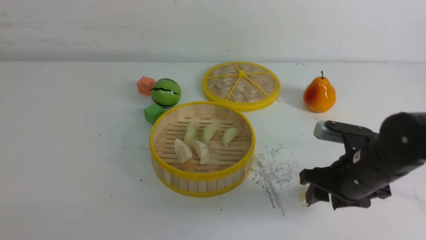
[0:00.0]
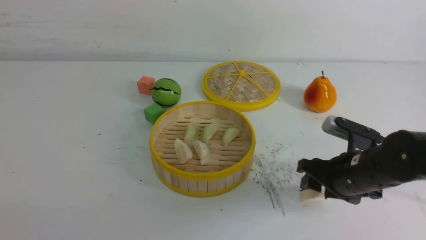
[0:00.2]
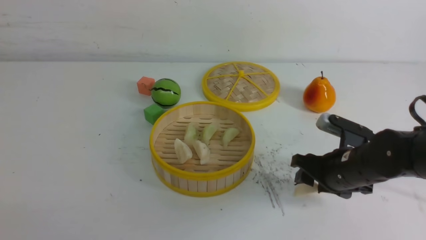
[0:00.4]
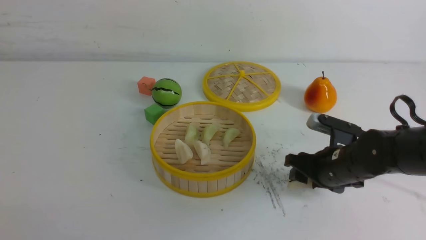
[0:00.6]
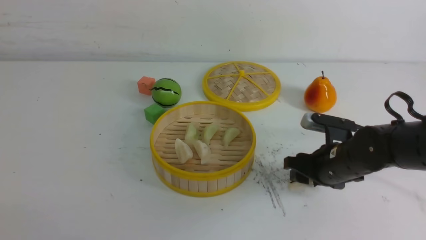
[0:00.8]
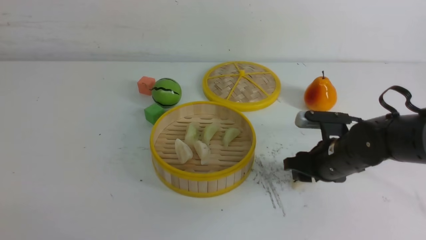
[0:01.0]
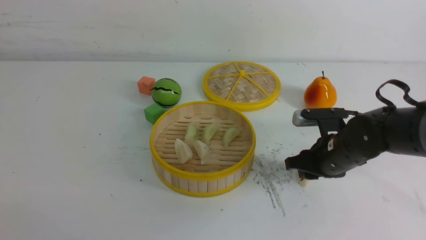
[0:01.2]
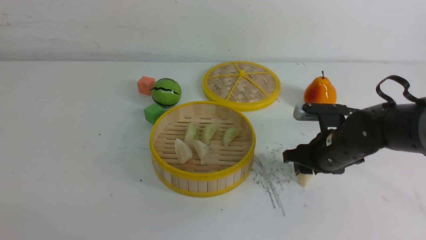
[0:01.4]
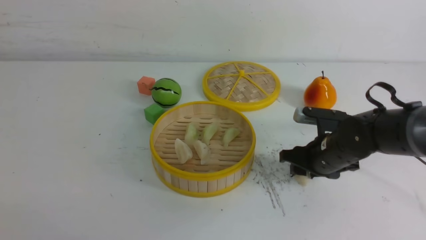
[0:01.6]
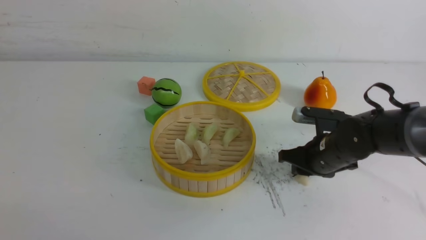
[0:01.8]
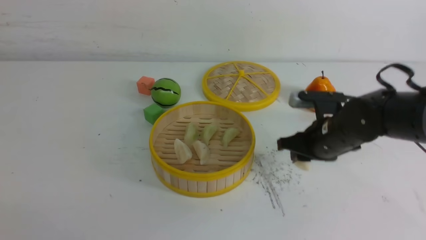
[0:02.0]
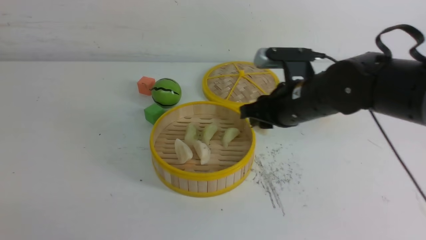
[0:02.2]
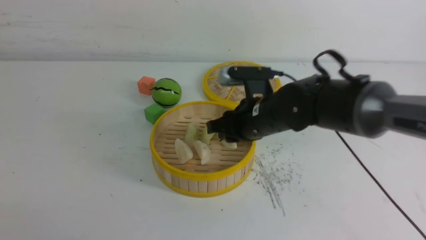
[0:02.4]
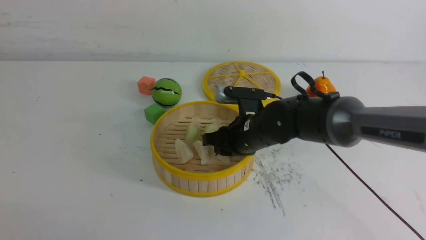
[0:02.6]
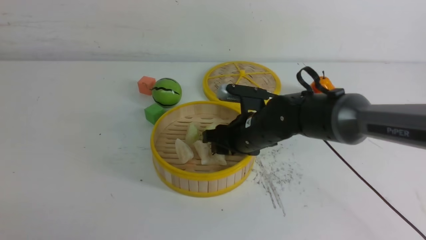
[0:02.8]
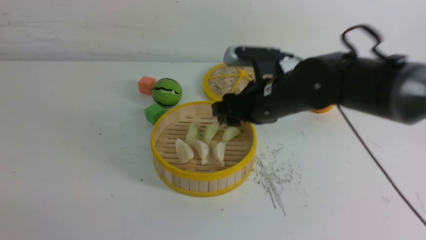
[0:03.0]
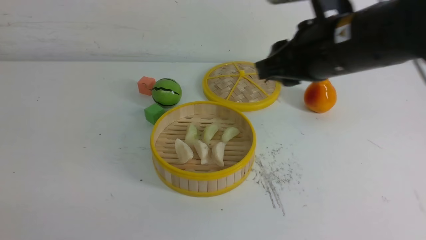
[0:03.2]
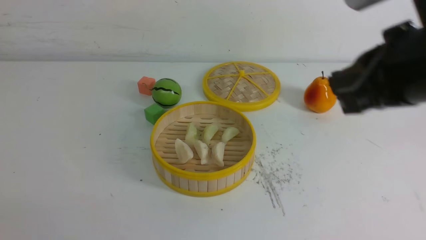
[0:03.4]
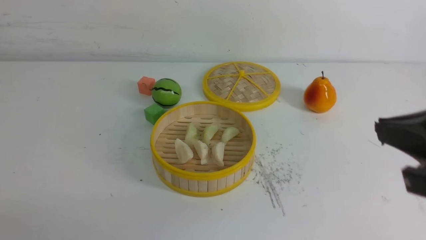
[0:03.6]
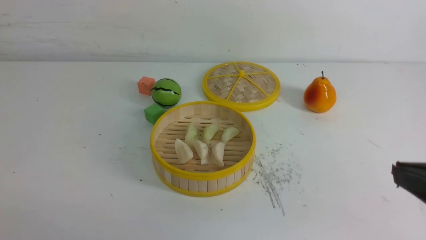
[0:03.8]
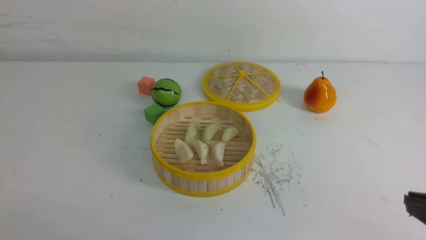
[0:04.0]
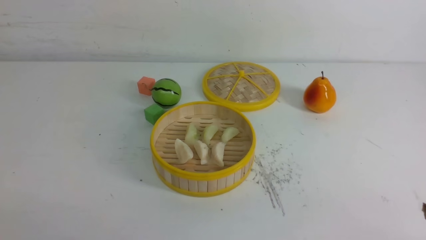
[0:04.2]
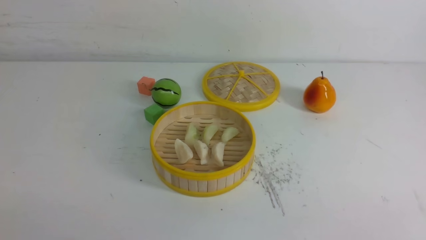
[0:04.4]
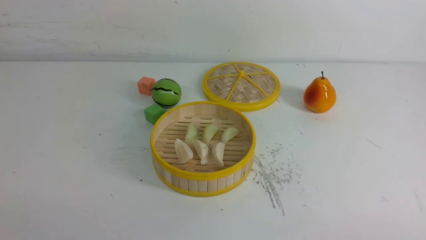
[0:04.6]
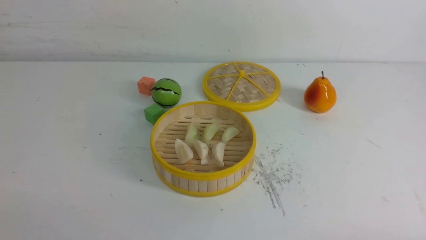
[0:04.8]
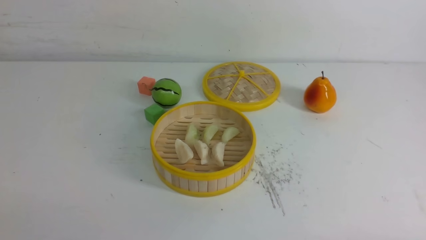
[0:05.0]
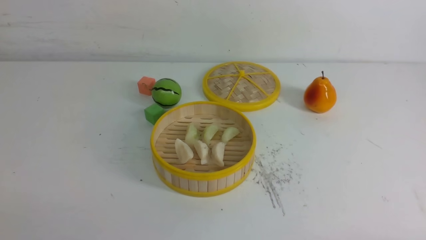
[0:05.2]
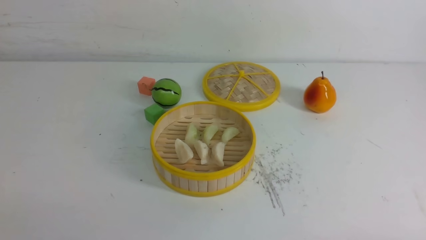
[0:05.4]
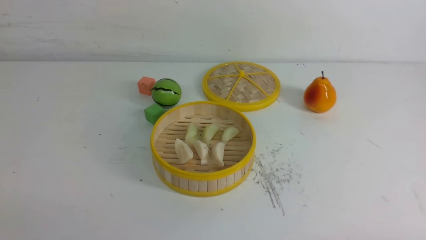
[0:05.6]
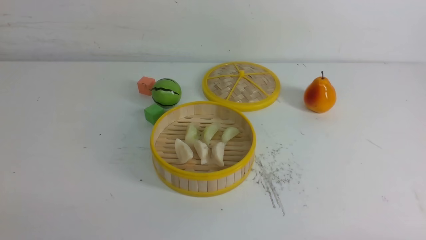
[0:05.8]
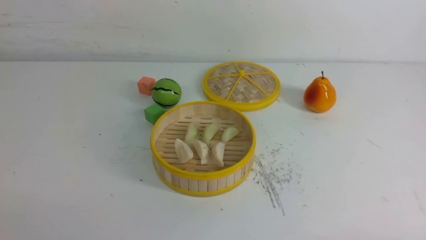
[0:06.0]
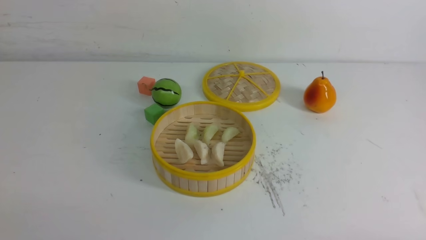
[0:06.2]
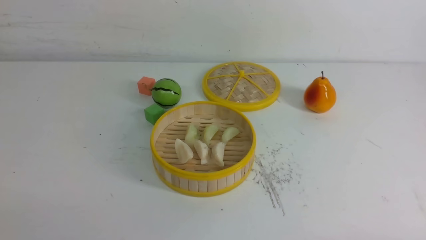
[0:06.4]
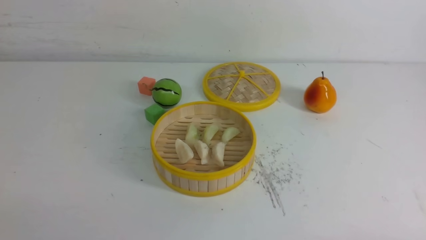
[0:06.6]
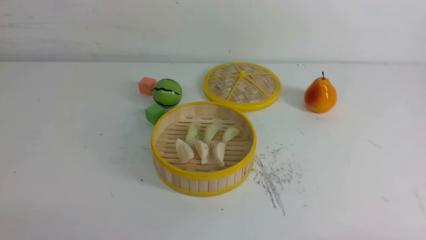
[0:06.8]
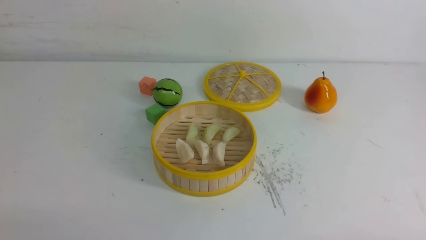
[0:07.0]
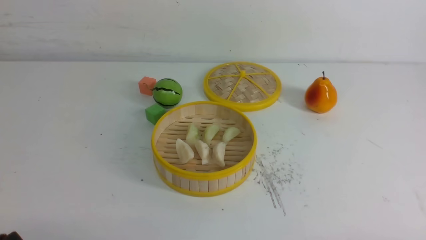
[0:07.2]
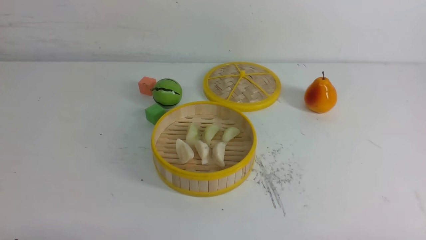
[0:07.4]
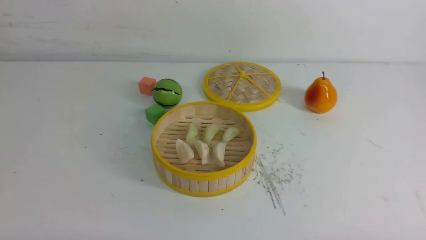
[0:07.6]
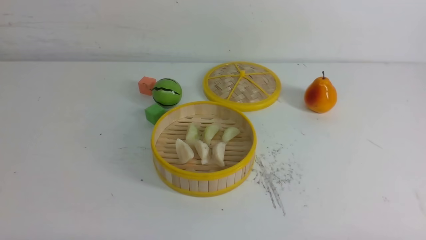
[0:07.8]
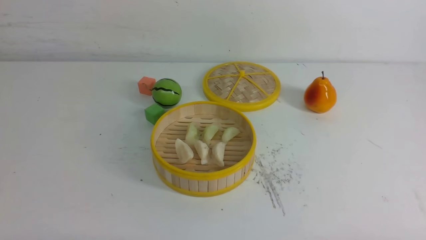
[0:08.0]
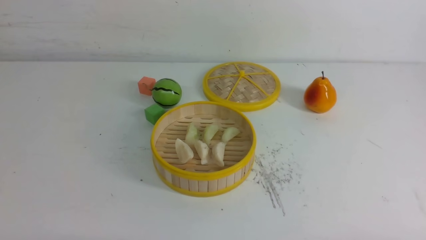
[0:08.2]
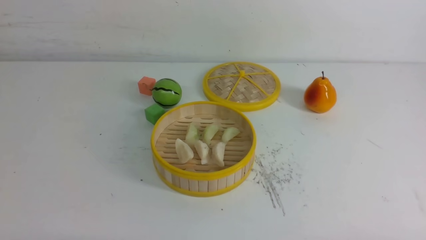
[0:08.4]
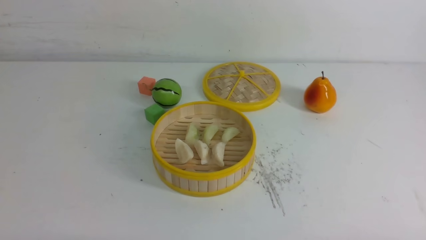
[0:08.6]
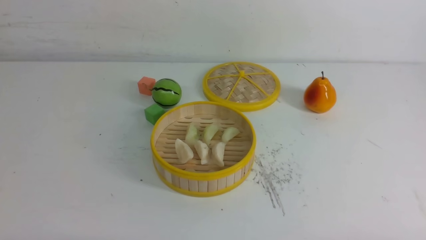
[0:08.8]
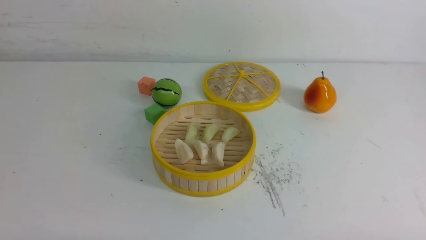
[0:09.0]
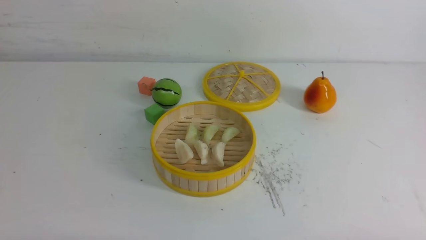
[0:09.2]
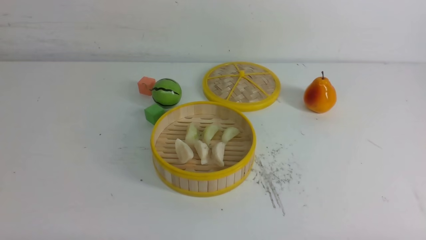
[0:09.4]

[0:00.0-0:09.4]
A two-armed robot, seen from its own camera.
Task of the whole recording: put the dumplings into the steamer on the white table.
Step, 0:00.0 to 0:01.8: use the right arm to grab a dumpling.
Step, 0:02.0 to 0:02.8: use the right arm to put the dumpling into the steamer.
0:00.0 to 0:01.6: The right gripper travels forward by some 5 cm.
0:01.6 to 0:03.2: The right gripper moves up and down over about 20 cm, changing direction 2 times.
0:03.2 to 0:04.8: The right gripper shifts some 35 cm backward, downward and to the right, and closes up.
0:07.8 to 0:09.4: Both grippers stay about where they are.

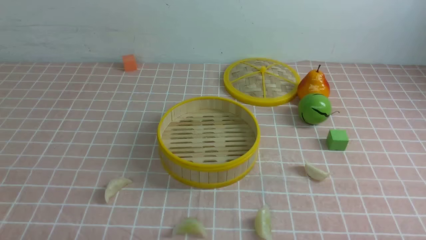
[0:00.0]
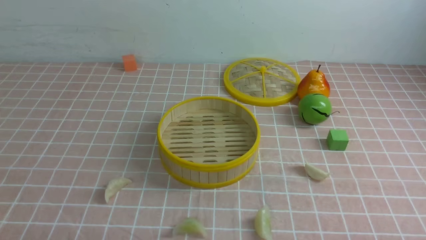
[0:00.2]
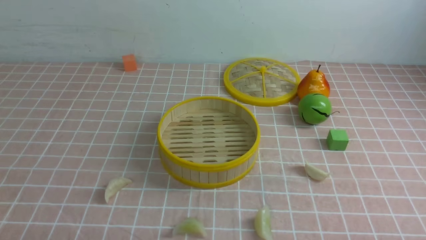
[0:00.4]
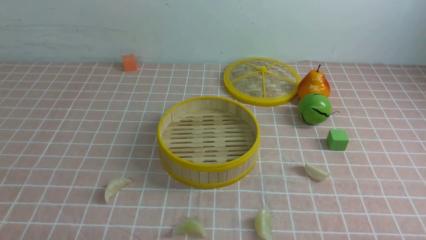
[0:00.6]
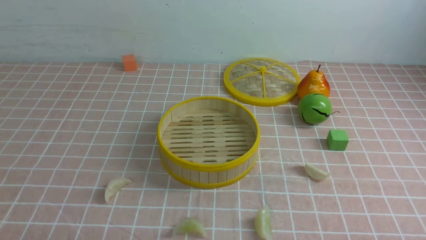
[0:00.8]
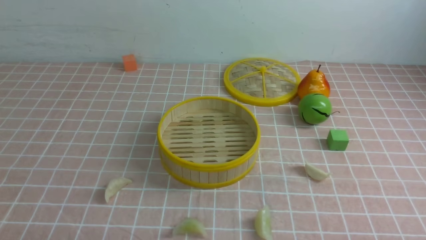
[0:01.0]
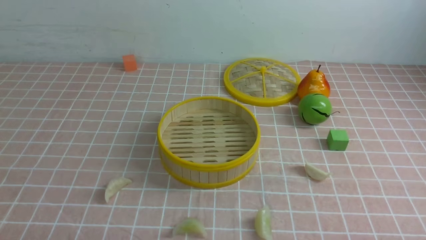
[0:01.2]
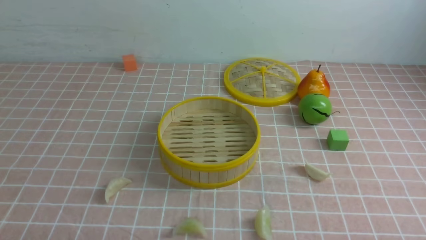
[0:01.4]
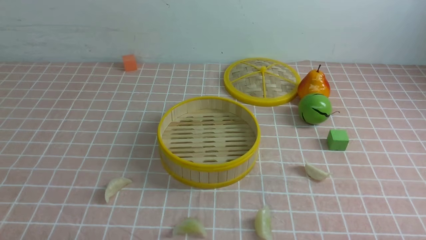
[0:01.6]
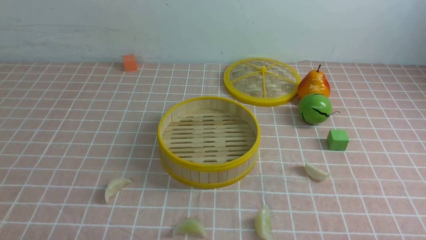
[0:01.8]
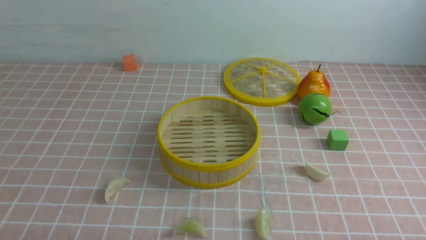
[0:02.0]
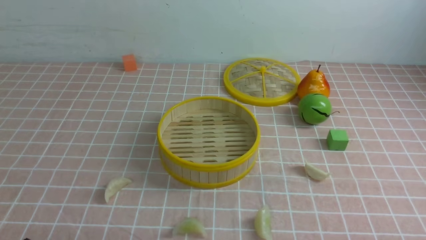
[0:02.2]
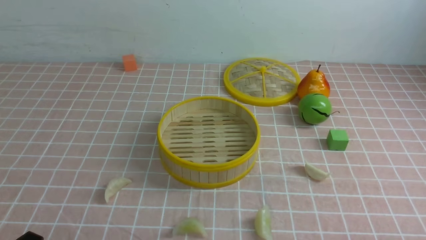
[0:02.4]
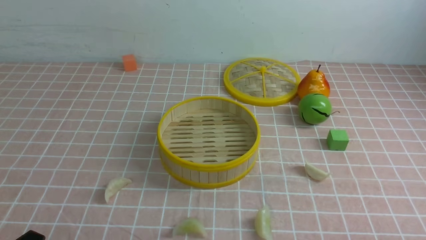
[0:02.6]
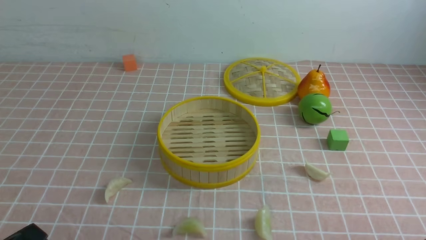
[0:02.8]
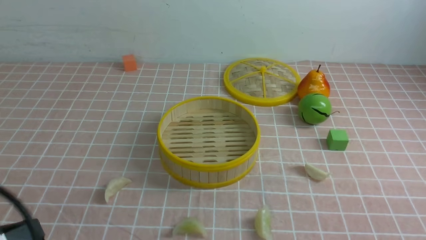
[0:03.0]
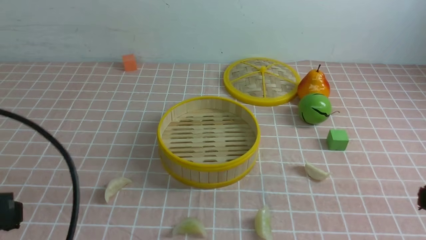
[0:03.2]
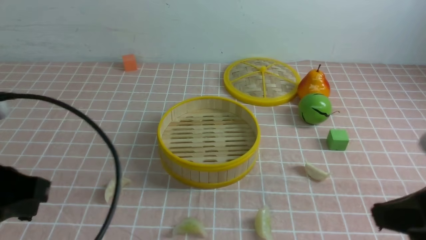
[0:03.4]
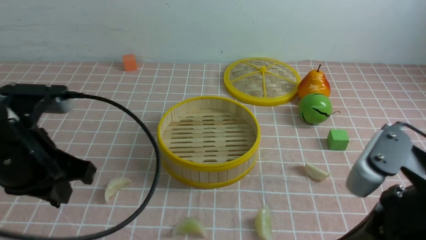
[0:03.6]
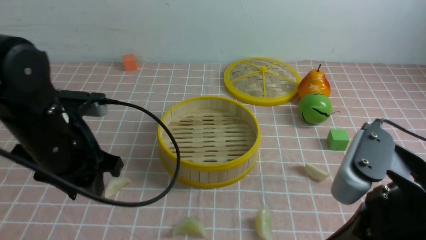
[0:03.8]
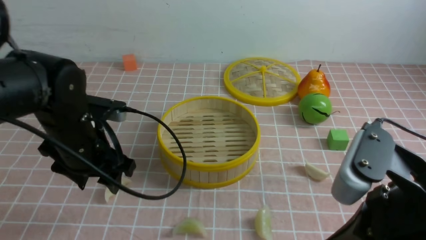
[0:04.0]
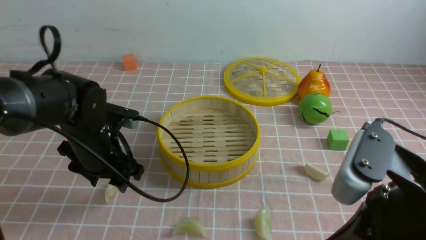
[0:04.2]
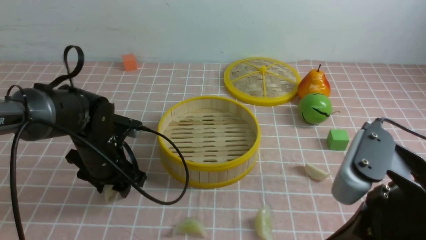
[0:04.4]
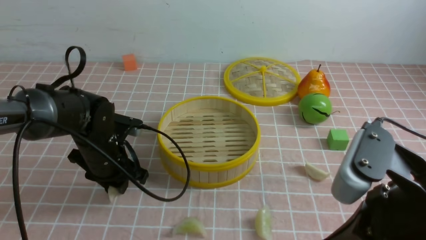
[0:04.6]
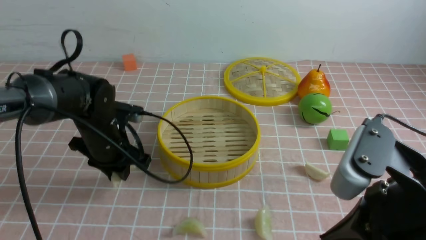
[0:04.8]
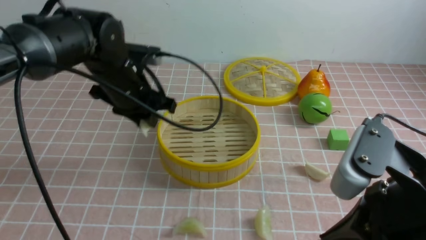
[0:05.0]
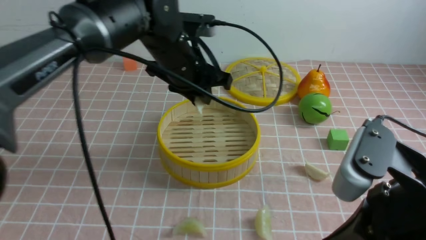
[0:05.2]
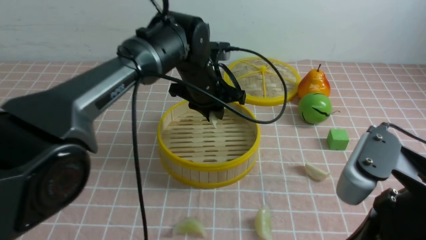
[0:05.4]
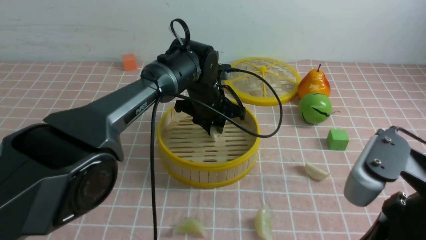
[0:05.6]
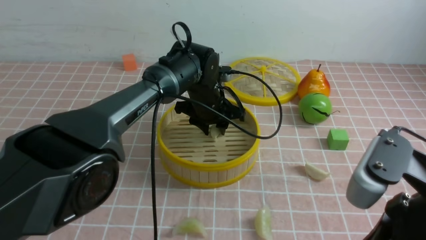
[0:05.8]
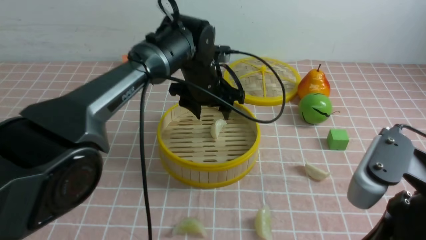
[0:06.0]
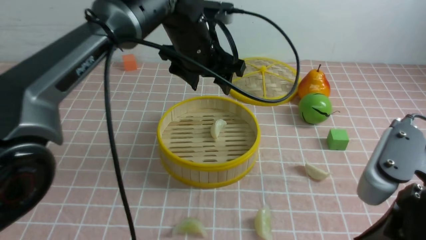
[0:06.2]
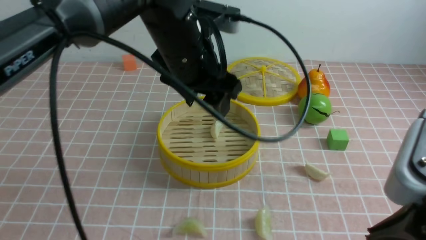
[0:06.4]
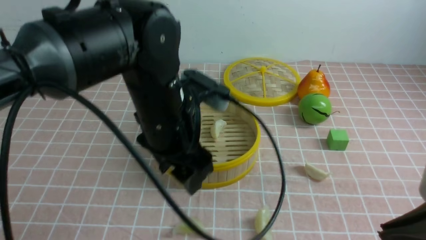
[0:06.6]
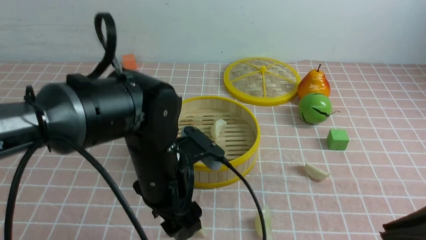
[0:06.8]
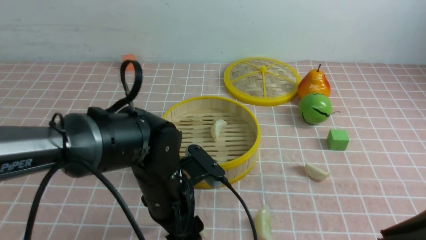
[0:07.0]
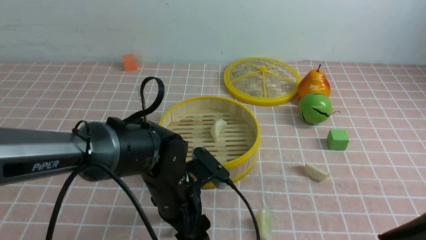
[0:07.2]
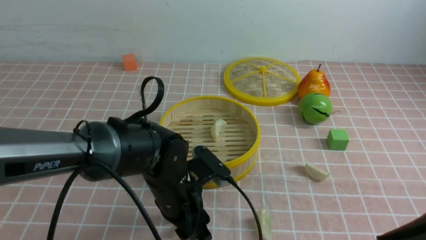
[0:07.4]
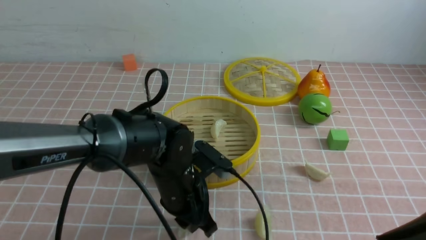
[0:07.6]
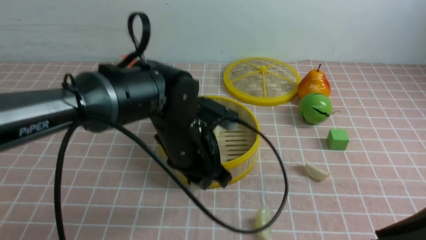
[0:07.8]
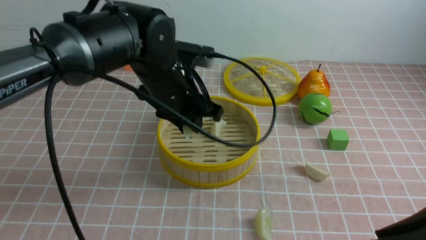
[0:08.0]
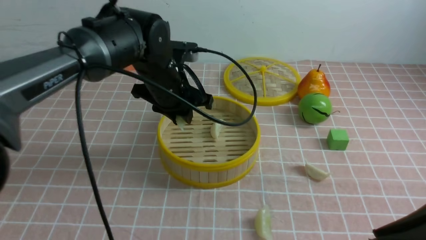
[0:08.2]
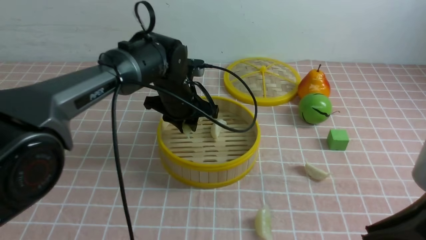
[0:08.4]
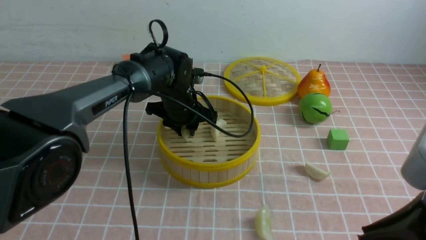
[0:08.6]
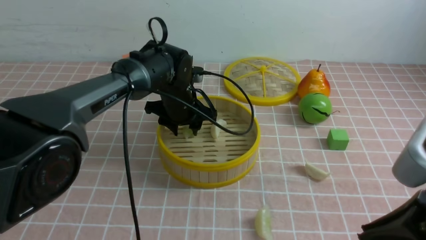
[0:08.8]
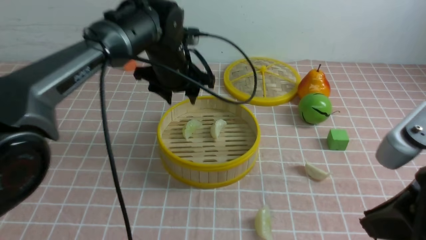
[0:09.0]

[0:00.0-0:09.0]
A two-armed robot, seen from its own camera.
Task of the whole recording: put the dumplings into the steamer on the table with the pink tablecloth.
Step, 0:00.0 to 0:04.8: use the left arm to grab a dumpling.
Step, 0:05.0 to 0:05.8: use the left arm to put the dumpling into the steamer.
Step, 0:06.0 to 0:07.6: use the left arm to grab a dumpling.
Step, 0:07.8 to 0:08.8: use the left arm to put the dumpling into the steamer.
0:00.0 to 0:01.6: The two grippers keep their place.
0:01.6 to 0:03.0: The left gripper is displaced upward by roughly 10 cm, and closes.
0:03.0 to 0:04.4: The left gripper goes about 30 cm forward and downward, and opens. Meanwhile the right gripper is displaced to the left, forward and upward by roughly 15 cm.
0:04.4 to 0:06.0: The left gripper is displaced to the right, upward and forward by some 20 cm, and closes and opens again.
0:06.0 to 0:07.6: The right gripper changes place by roughly 5 cm. Meanwhile the left gripper shifts roughly 15 cm backward and downward, and closes up.
0:07.6 to 0:09.0: The left gripper travels forward and upward by approximately 20 cm.
